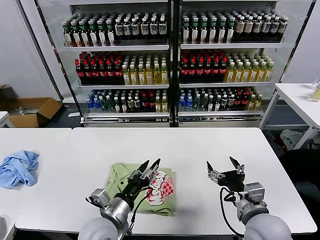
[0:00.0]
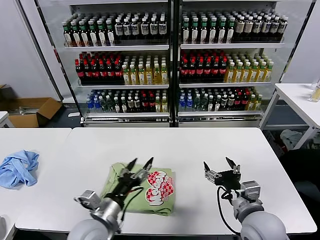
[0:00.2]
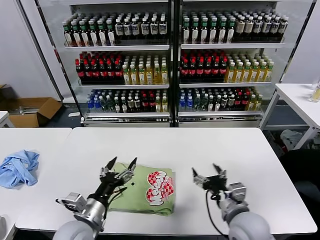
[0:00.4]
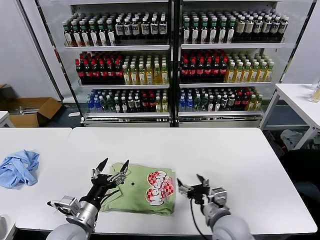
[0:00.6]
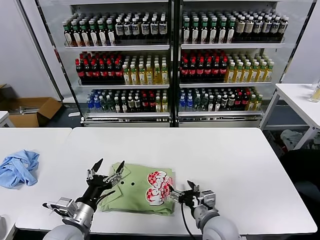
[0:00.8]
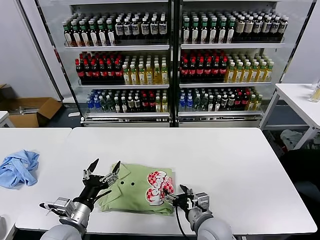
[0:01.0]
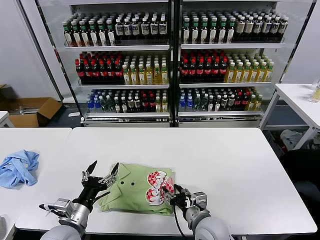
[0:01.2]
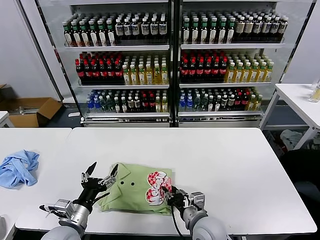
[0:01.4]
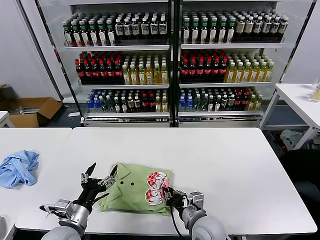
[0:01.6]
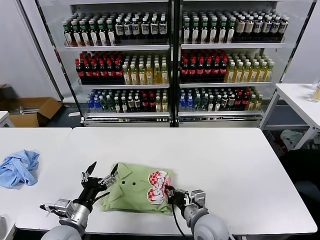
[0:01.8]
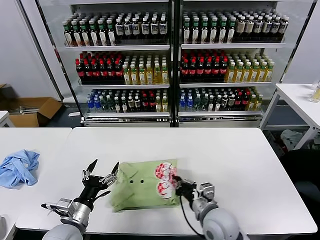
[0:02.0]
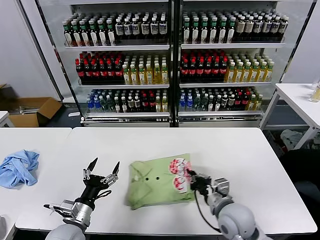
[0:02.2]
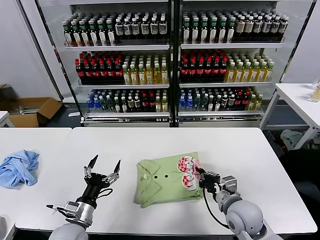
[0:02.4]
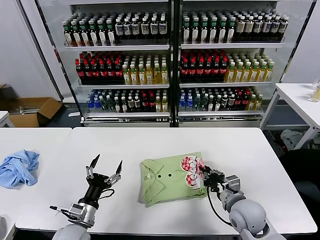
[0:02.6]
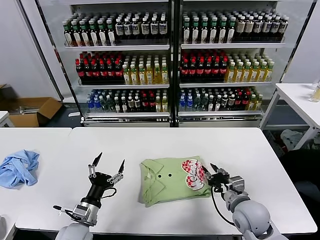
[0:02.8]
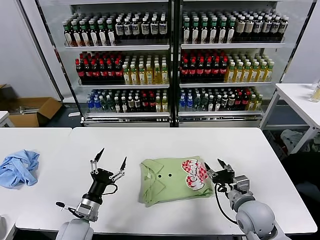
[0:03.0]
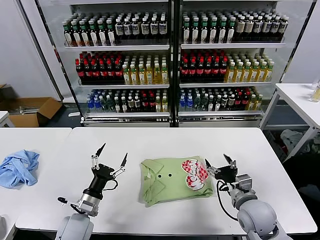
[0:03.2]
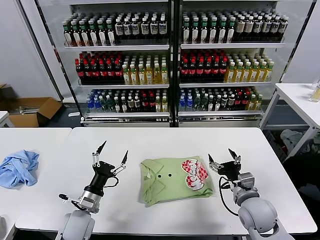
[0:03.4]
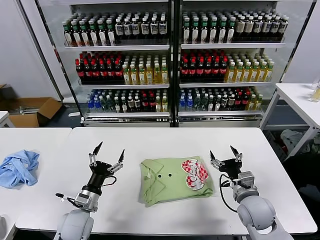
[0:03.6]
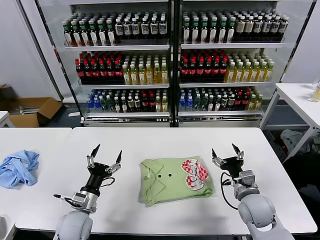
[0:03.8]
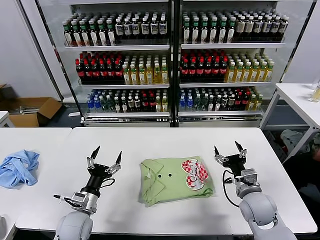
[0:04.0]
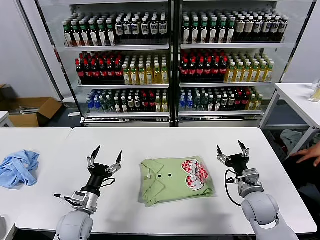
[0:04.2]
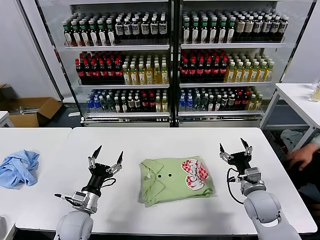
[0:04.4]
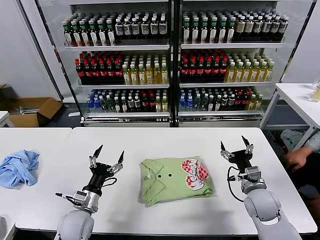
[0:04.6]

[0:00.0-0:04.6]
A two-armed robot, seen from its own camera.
Task of the whole recording: fold and organize the clothes.
Step, 0:00.2 to 0:02.8: Drag the clothes to the center of the table.
0:00.0 to 0:01.6: The right gripper shifts about 15 cm to the left and downward, and closes its fingers. Meanwhile the left gripper is displaced to the left by approximately 10 cm, and opens.
0:01.6 to 0:03.0: The right gripper travels to the right by roughly 15 cm; the left gripper shifts by some 5 cm.
0:03.0 to 0:04.6: The right gripper changes place by about 5 cm, and opens its fingers.
